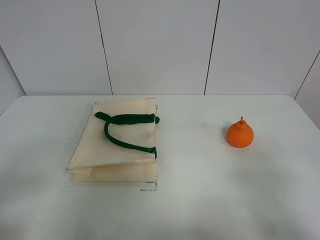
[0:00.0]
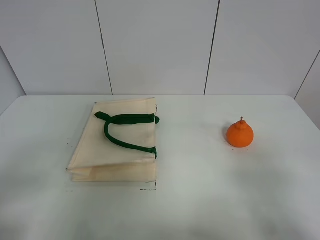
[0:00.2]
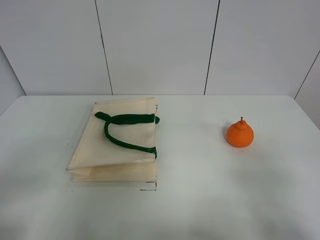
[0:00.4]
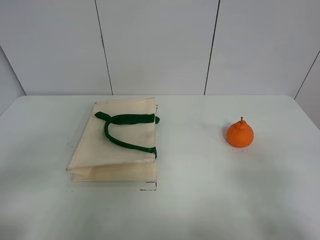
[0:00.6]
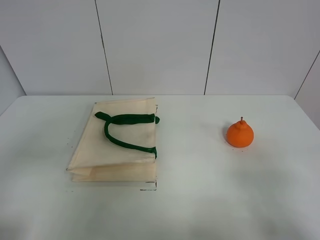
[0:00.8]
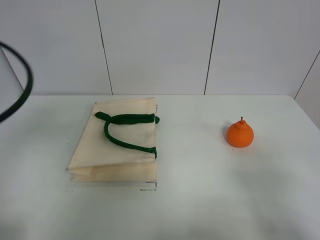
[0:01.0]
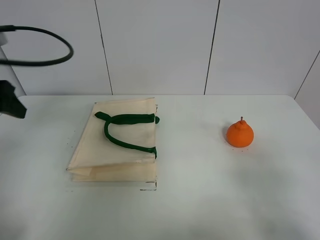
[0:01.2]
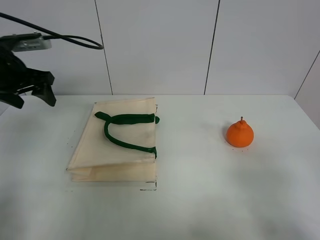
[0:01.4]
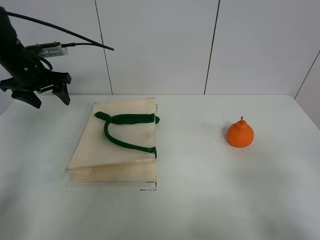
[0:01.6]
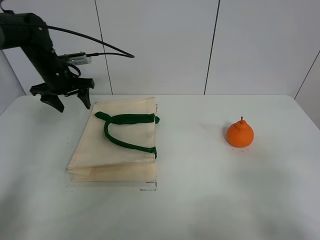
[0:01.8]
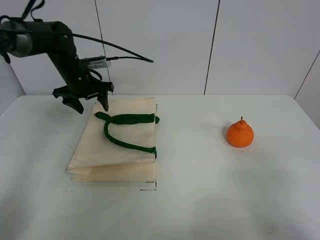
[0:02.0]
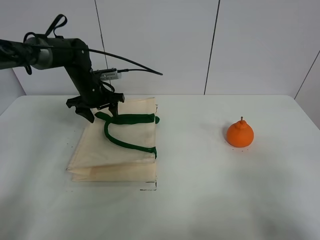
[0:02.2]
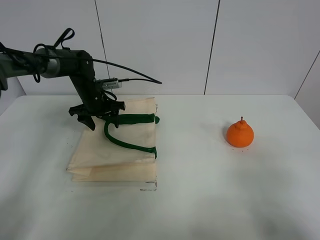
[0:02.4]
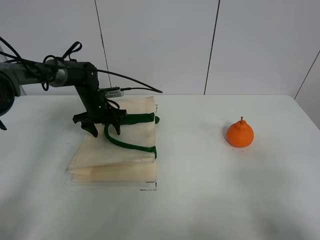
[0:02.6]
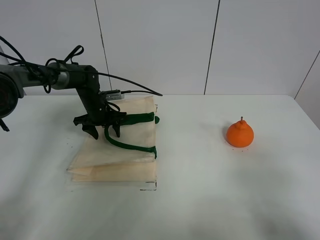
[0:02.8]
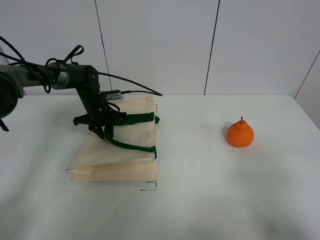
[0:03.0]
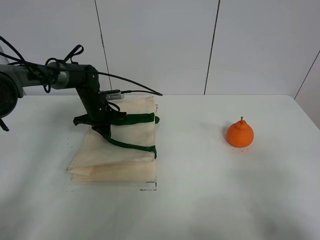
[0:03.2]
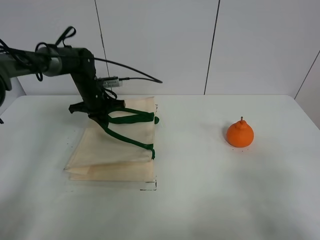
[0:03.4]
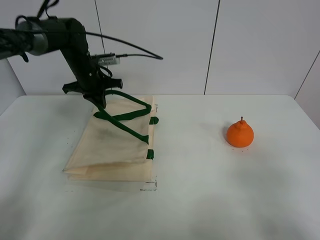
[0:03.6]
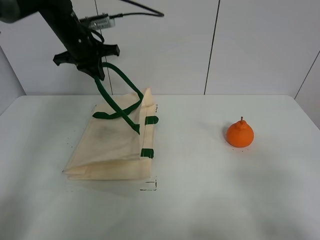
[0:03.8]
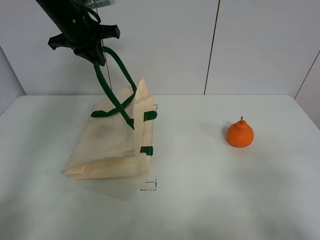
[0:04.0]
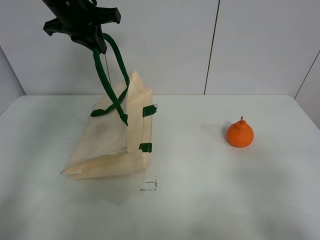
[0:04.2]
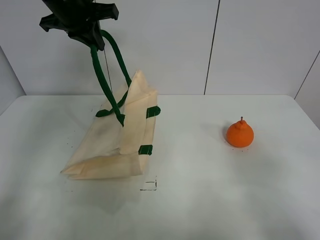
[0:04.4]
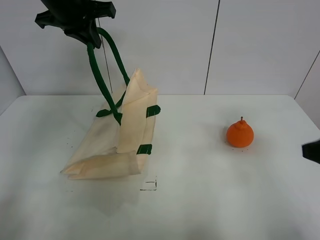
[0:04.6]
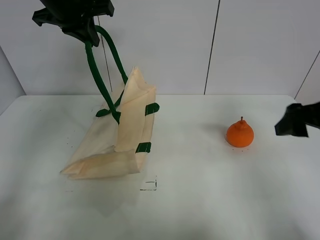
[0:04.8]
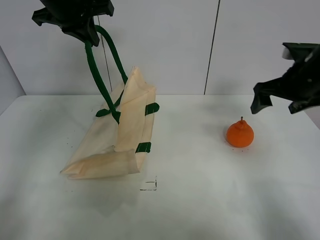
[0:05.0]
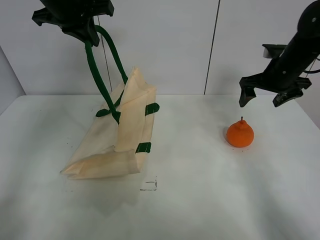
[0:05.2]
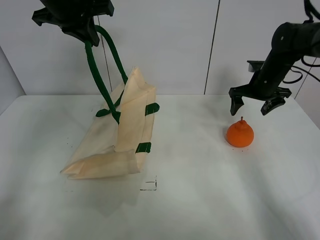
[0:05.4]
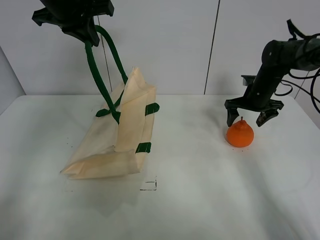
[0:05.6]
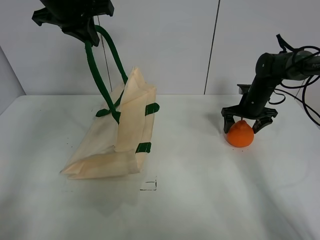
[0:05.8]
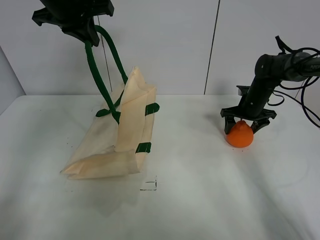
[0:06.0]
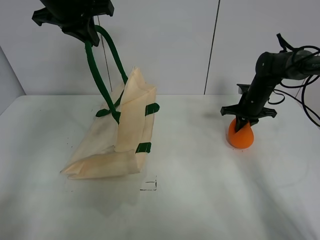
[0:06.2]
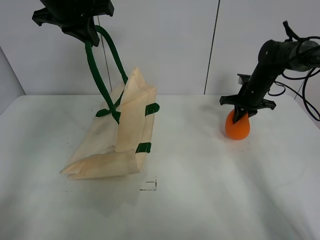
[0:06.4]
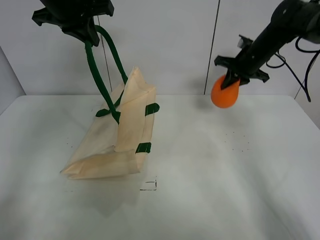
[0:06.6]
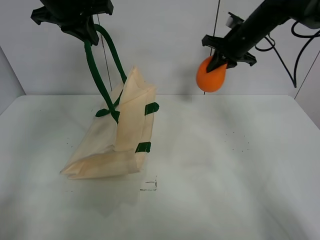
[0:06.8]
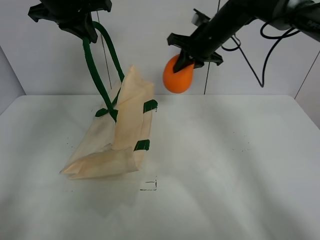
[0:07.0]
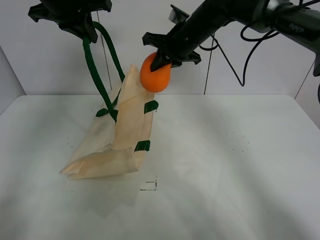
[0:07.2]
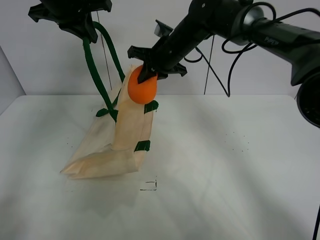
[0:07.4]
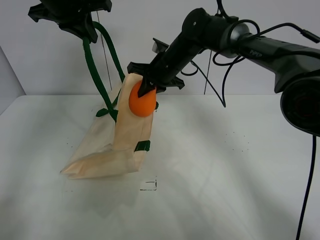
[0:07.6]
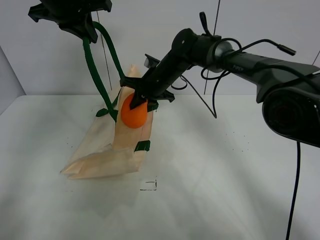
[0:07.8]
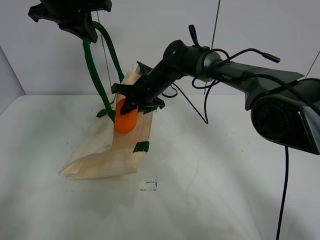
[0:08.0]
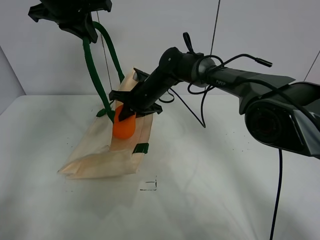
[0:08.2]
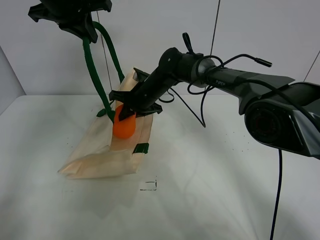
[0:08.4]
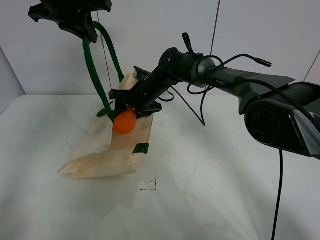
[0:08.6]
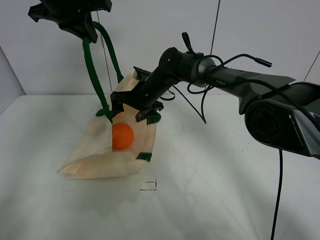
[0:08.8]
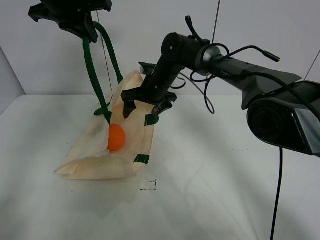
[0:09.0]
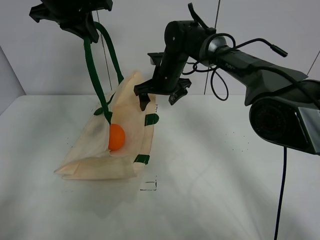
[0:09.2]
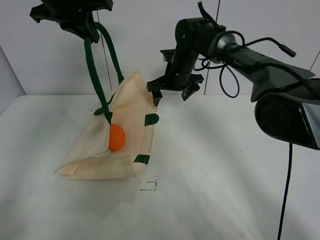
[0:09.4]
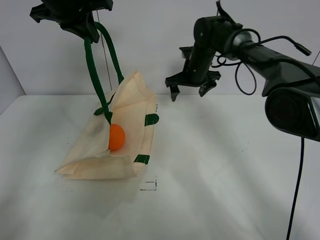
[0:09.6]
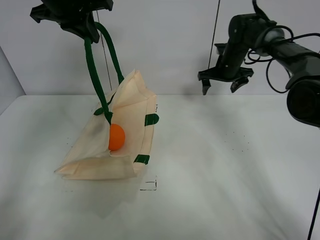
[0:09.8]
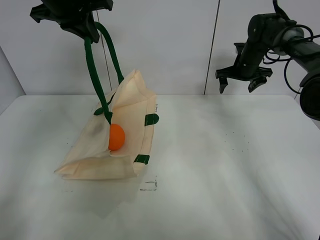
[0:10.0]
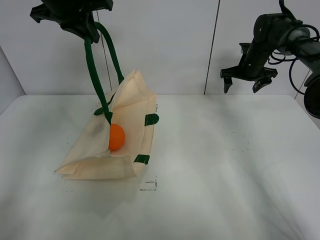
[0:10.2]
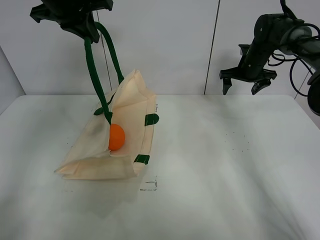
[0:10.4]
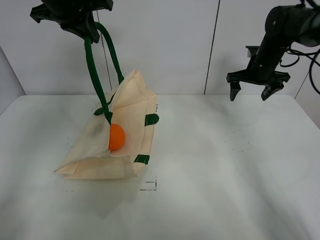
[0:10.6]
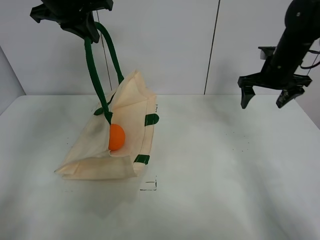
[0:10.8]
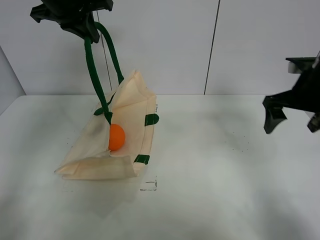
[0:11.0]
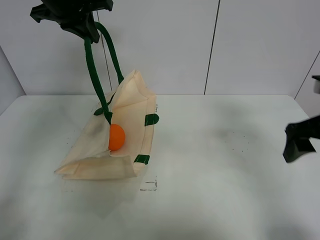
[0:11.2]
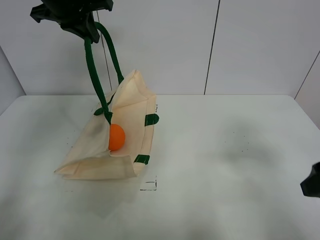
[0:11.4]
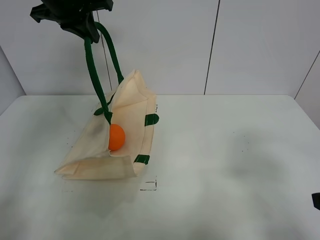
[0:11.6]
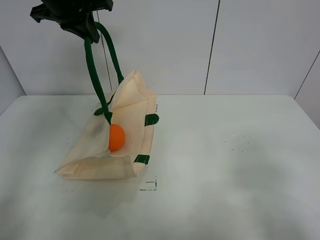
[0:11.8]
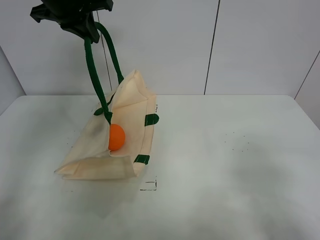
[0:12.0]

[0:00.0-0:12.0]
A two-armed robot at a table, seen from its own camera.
Task of the whole recording: open the white linen bag and put the orange in the bag.
Step, 0:00.0 to 0:04.4: Lift the handbag with left gripper.
Step, 0:04.6 to 0:06.2: Grasp the orange with right gripper.
Step, 0:06.4 to 0:08.8: Place the orange in the handbag with right gripper.
0:00.0 to 0:01.6: The left gripper goes roughly 40 cm forward.
0:01.6 to 0:03.0: The left gripper travels downward, to the right and forward by roughly 20 cm, and closes.
0:03.0 to 0:04.4: The left gripper is displaced upward by approximately 30 cm.
0:04.4 to 0:06.0: The right gripper goes approximately 40 cm forward.
0:06.0 to 0:07.6: The right gripper goes approximately 25 cm to the left and upward, and closes its fingers.
0:07.6 to 0:09.0: The right gripper opens.
0:09.0 to 0:10.4: The right gripper shifts some 25 cm to the right.
0:10.4 to 0:12.0: The right gripper heads backward, covering about 50 cm.

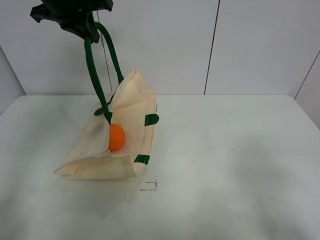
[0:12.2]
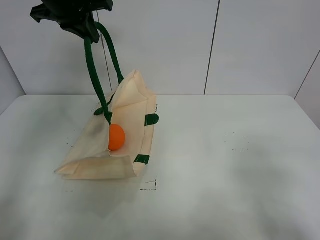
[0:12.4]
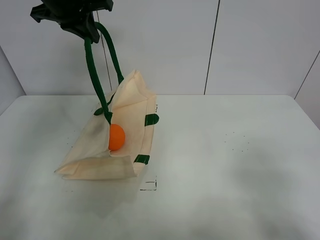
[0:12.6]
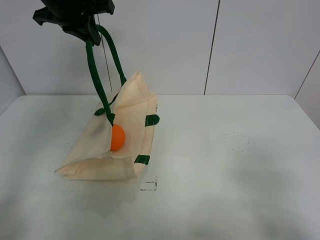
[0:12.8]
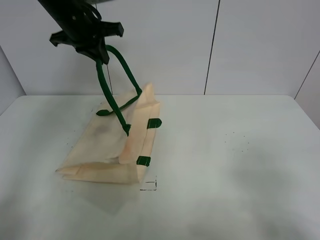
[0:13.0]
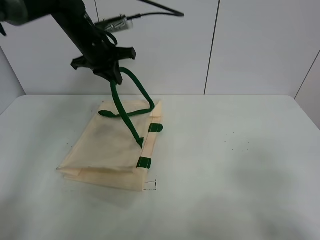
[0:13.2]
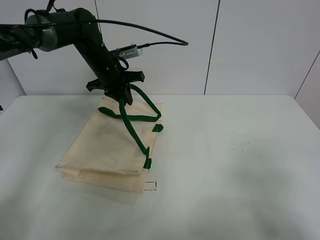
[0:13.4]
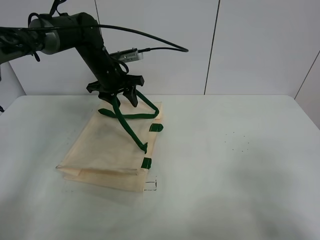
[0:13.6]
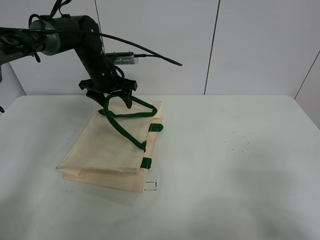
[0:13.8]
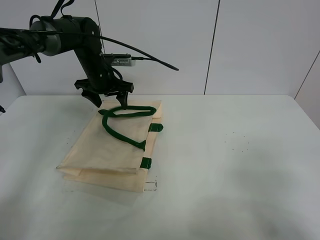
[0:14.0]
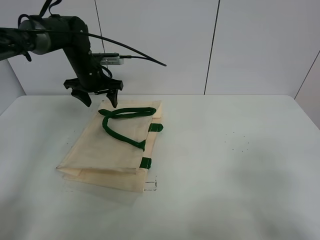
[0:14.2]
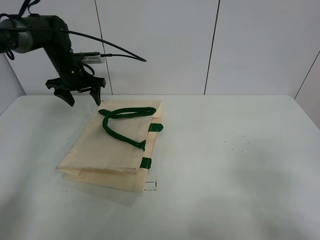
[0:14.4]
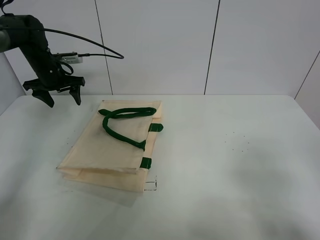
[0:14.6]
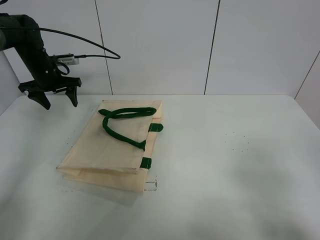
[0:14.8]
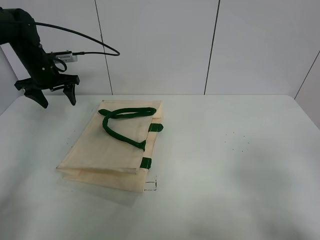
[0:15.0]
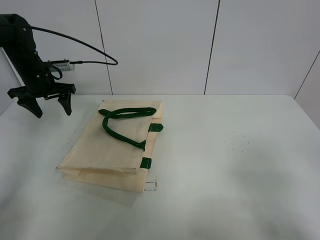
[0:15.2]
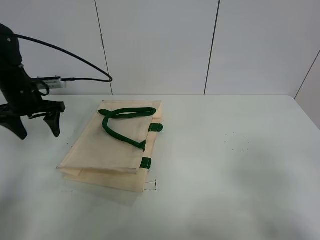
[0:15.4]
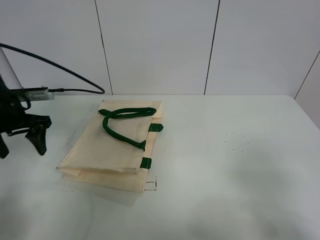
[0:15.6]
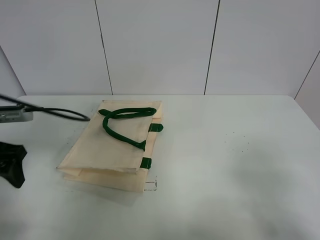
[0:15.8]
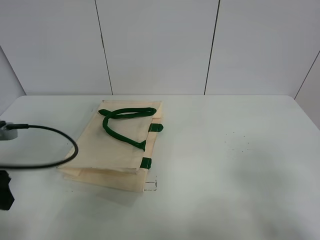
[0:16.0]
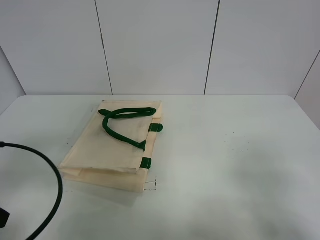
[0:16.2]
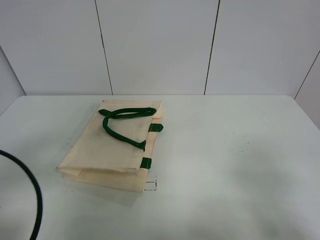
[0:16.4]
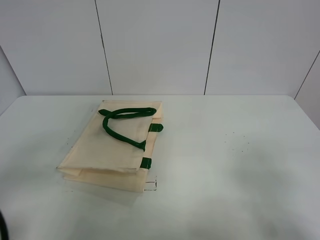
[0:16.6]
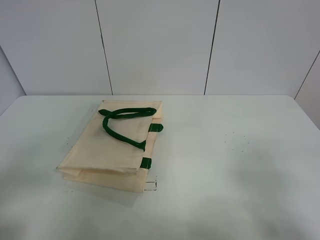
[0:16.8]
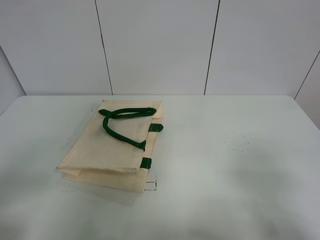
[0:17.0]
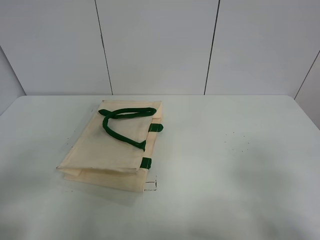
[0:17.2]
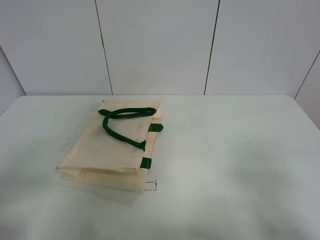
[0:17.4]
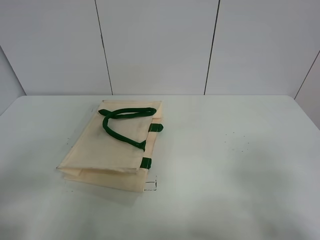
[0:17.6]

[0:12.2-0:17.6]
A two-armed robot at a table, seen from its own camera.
Task of the whole recording: open the white linen bag and put the orange in the bag.
0:12.2 to 0:13.6: The left gripper is displaced downward by roughly 20 cm, and opens up.
0:13.6 to 0:15.0: The left gripper goes some 15 cm to the left.
0:15.0 to 0:16.2: The left gripper goes approximately 35 cm backward.
0:16.2 to 0:17.6: The left gripper moves backward, about 10 cm.
